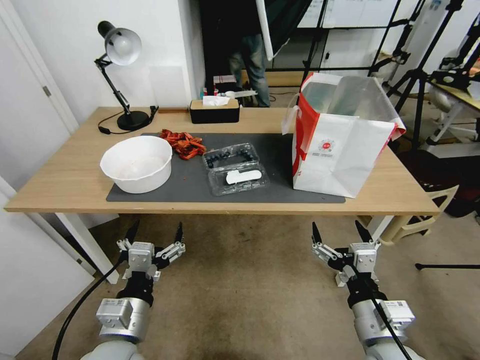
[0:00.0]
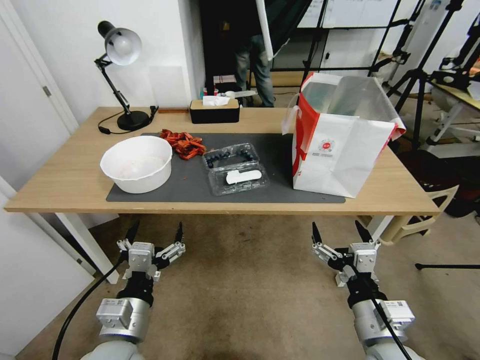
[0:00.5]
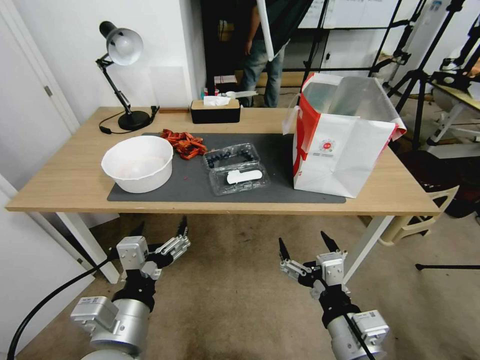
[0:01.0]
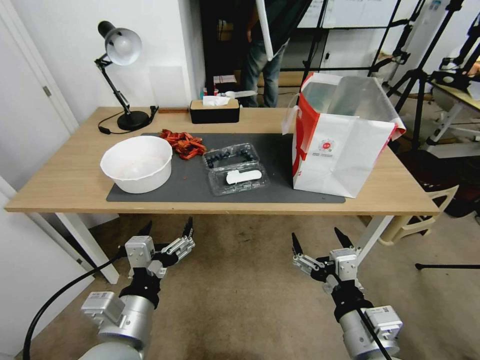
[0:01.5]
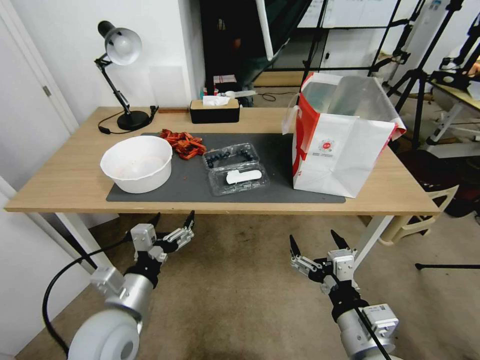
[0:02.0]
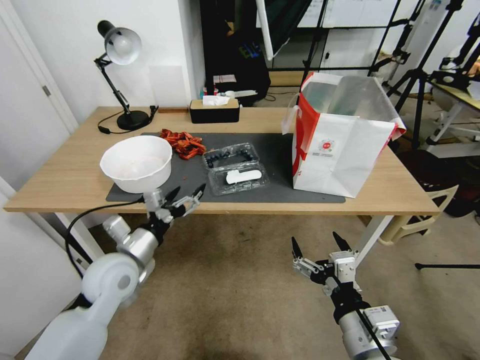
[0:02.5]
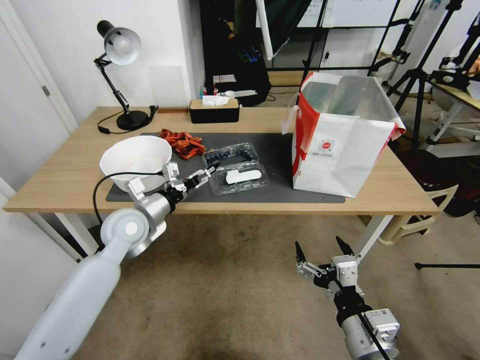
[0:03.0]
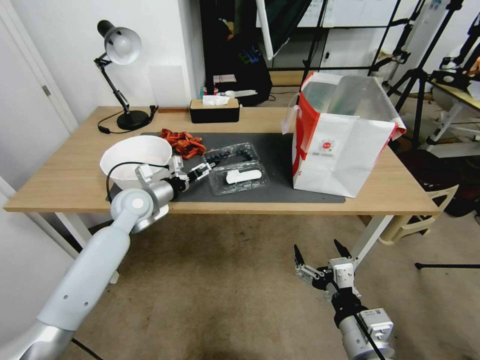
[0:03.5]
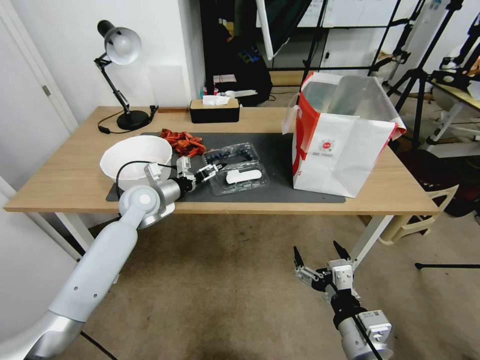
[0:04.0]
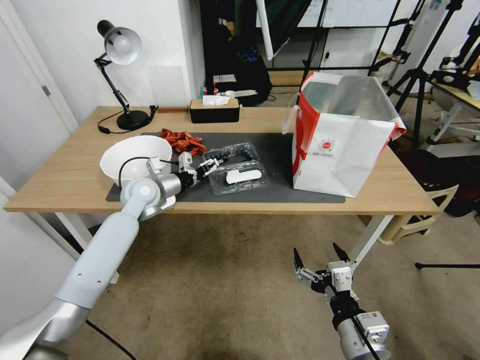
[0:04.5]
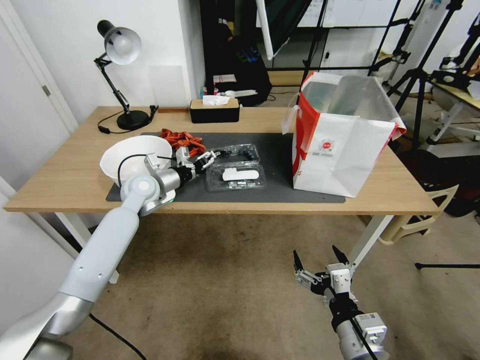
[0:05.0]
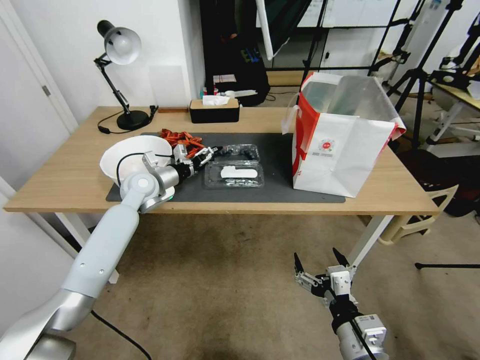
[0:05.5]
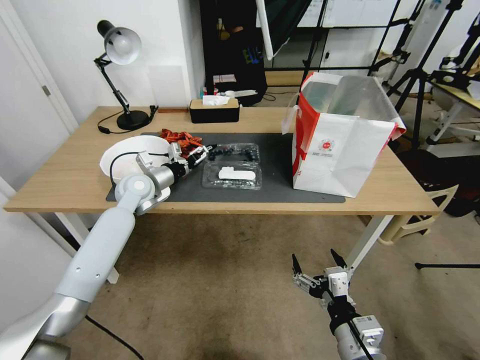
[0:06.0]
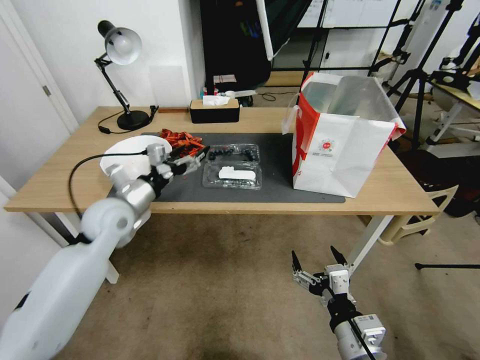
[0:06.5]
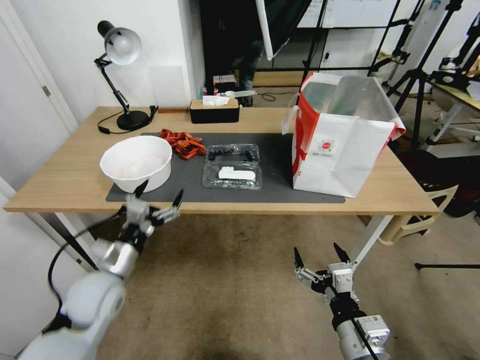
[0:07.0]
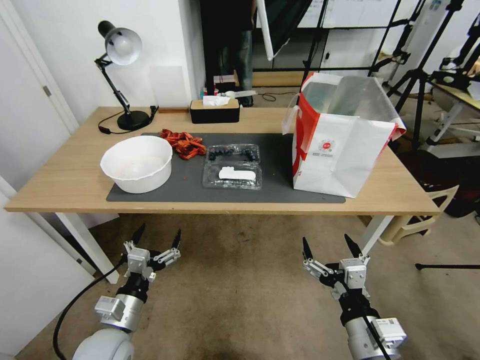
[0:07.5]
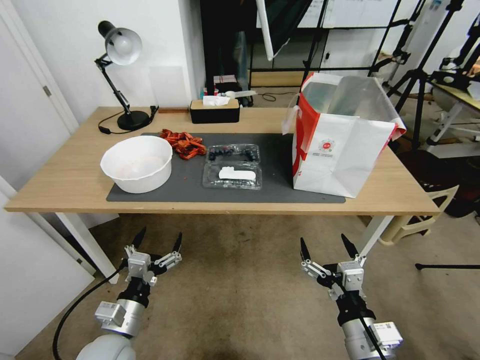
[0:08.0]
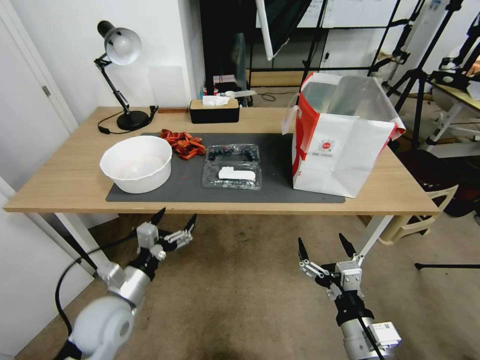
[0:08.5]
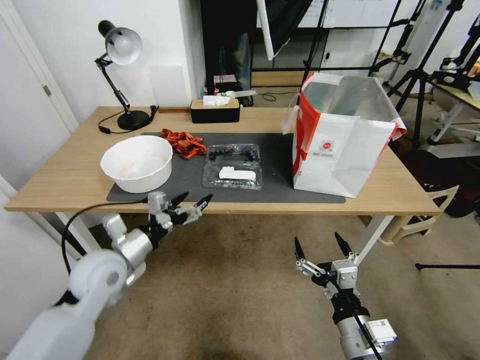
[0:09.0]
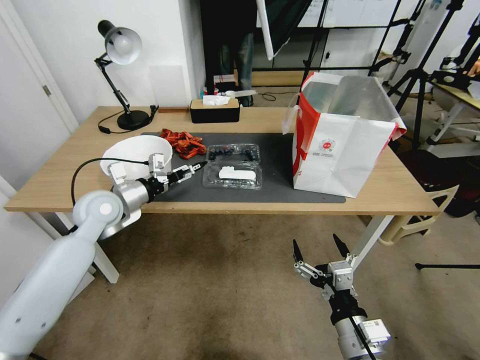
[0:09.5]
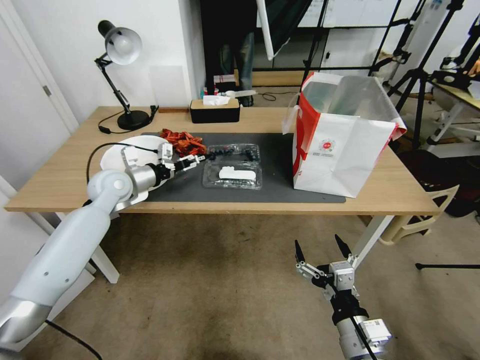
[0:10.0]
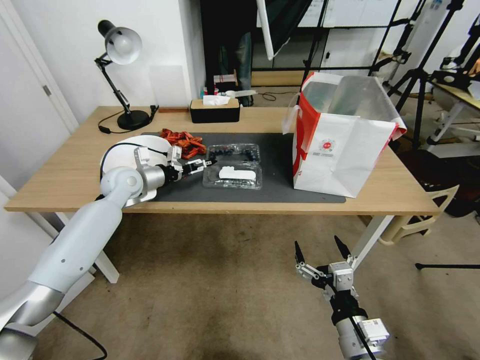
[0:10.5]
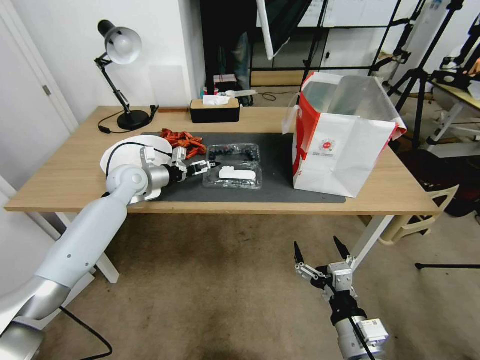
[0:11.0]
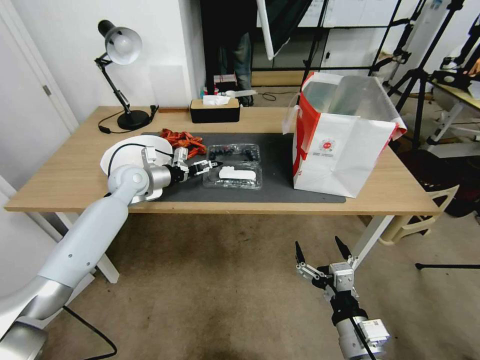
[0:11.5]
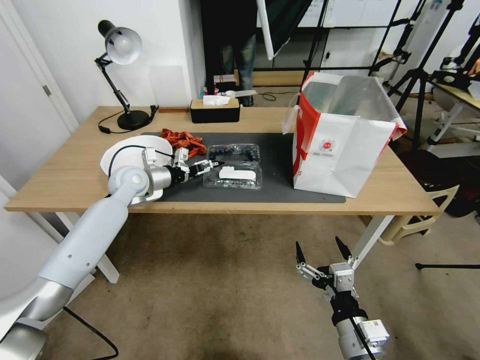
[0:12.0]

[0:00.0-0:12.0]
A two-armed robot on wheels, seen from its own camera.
Task of the whole recording: Close the takeout container lid, then place the container into the takeout bag.
0:02.0 to 0:04.0: The left gripper travels forward by roughly 30 cm.
0:04.0 to 0:06.0: There are only small adjustments of the grippers.
0:06.0 to 0:08.0: The left gripper goes about 35 cm backward.
0:08.0 to 0:10.0: The left gripper moves forward and upward, approximately 35 cm.
0:10.0 to 0:12.0: The grippers make only small movements.

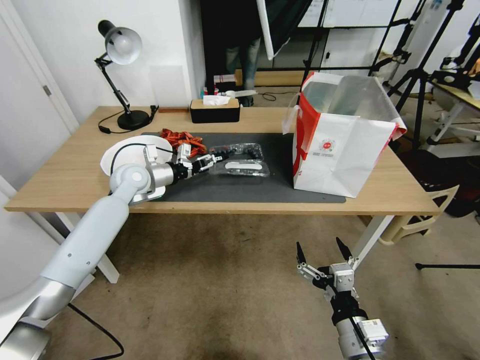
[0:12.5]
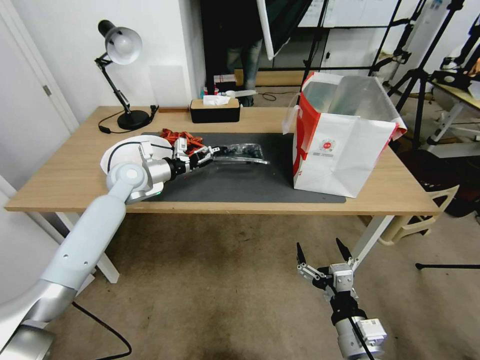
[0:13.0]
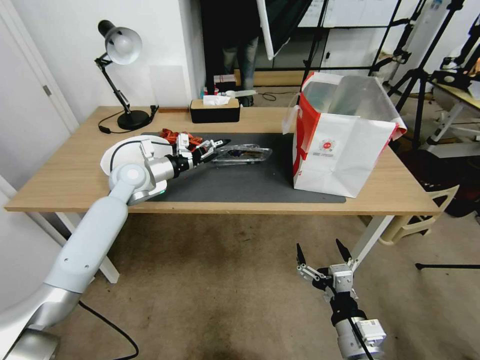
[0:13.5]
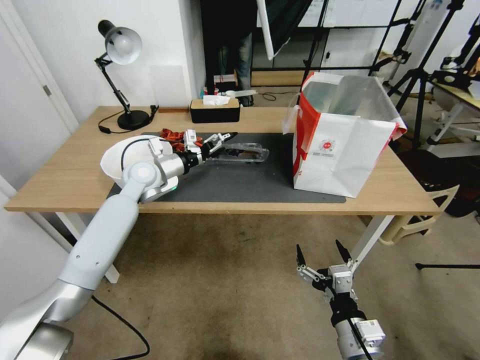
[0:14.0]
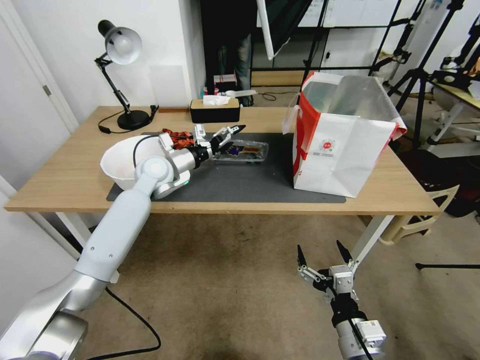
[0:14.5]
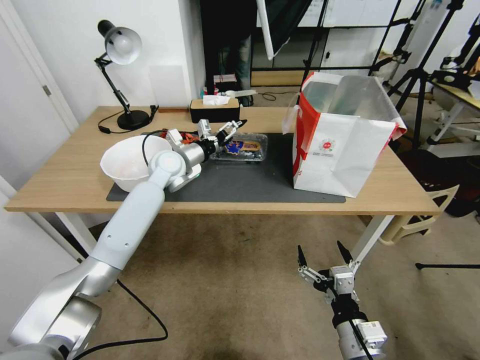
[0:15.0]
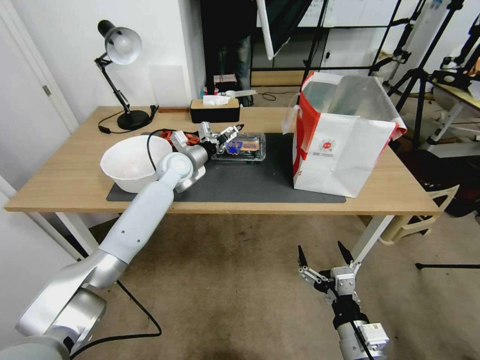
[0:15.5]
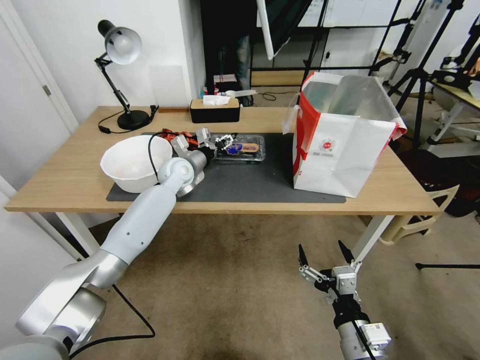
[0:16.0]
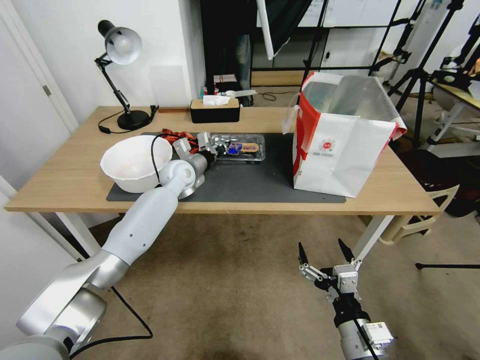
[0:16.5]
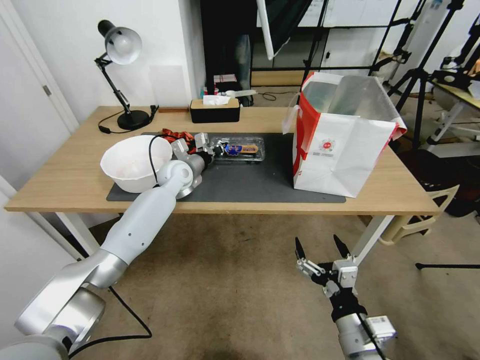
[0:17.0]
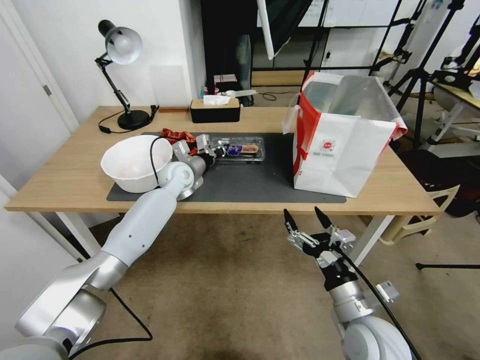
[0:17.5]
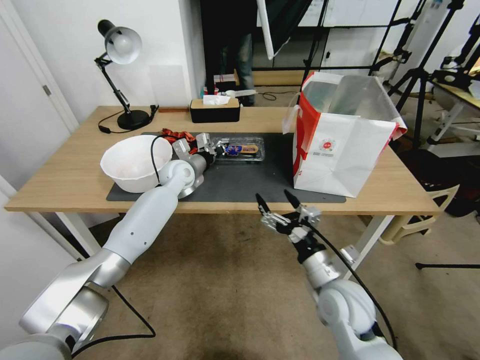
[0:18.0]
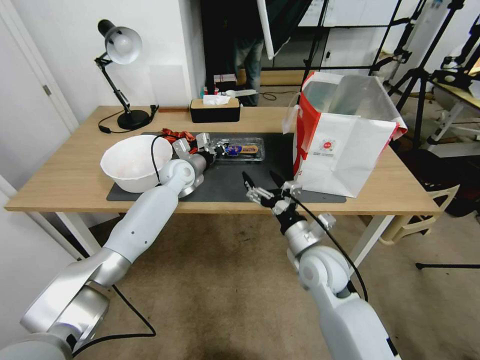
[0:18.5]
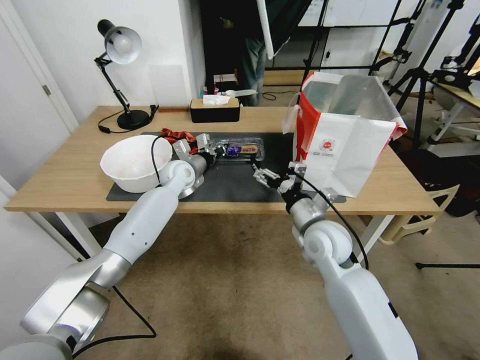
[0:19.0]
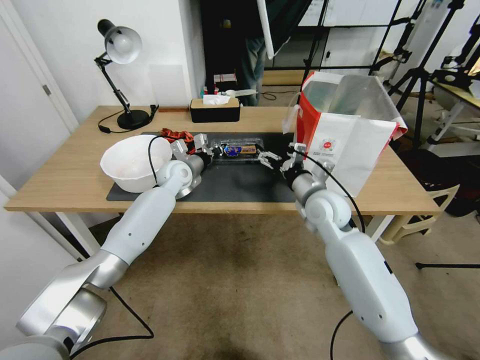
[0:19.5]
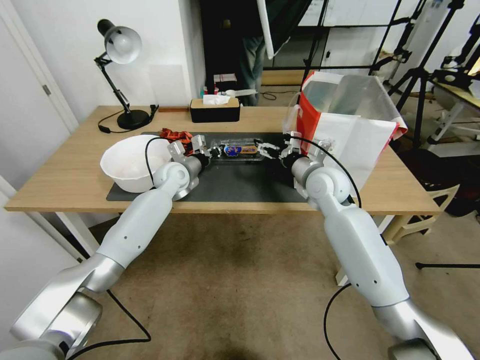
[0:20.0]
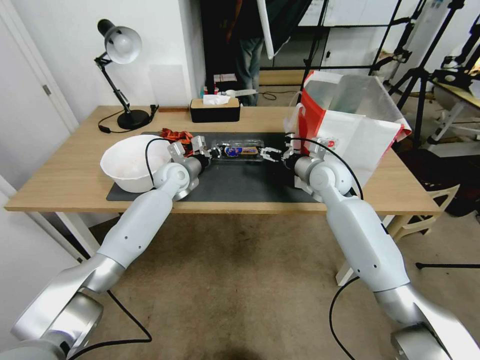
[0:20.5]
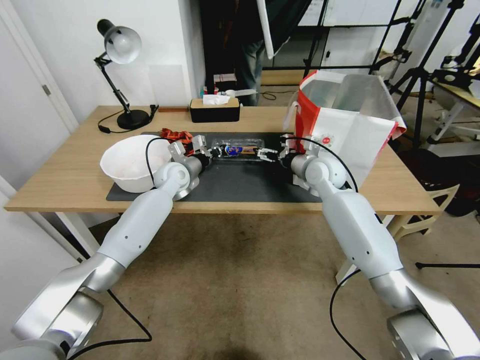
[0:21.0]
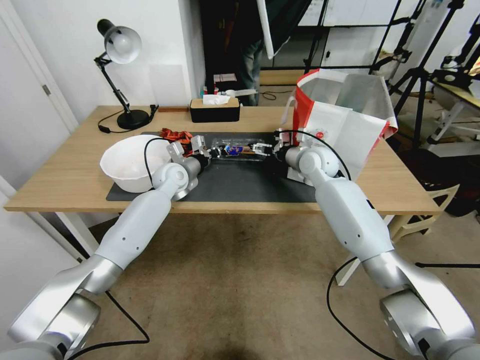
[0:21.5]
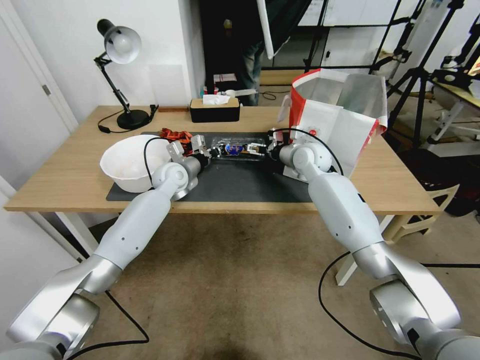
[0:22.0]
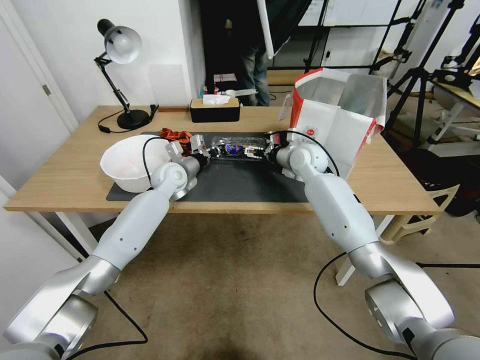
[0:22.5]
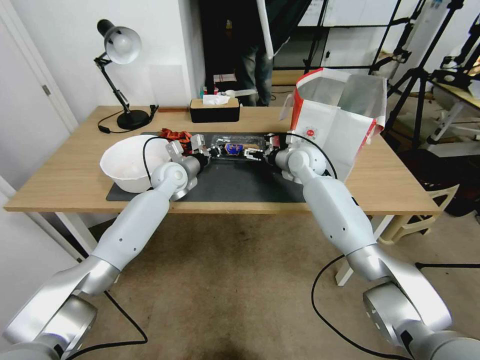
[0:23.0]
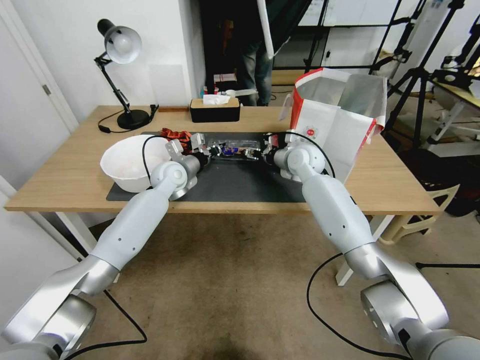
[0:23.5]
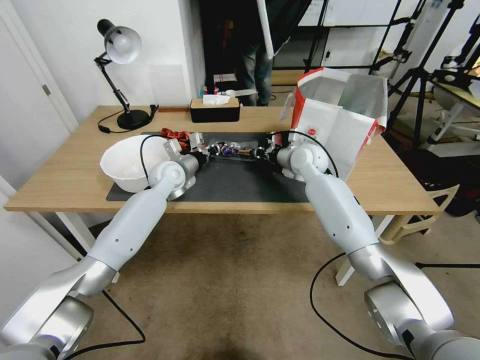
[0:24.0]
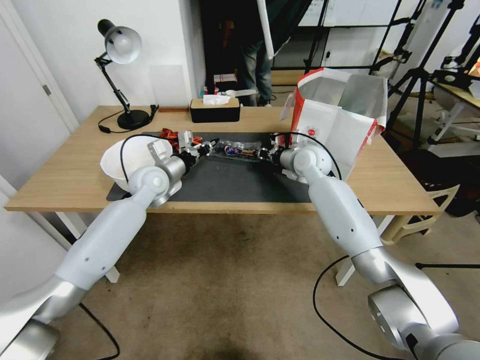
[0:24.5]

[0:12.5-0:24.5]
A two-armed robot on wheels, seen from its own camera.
Task of the whole recording: Close the takeout container lid, then place the container into the takeout bag.
0:12.5 to 0:14.5: The left gripper shifts roughly 5 cm to the right.
0:14.5 to 0:16.5: The left gripper ends up approximately 10 cm from where it was, and closes up.
0:16.5 to 0:18.5: The right gripper heads forward, covering some 15 cm.
0:18.5 to 0:20.5: The right gripper travels forward and upward by approximately 25 cm.
0:20.5 to 0:22.5: The right gripper travels forward by some 10 cm.
0:22.5 to 0:24.5: The right gripper closes. Meanwhile the left gripper goes approximately 5 cm backward.

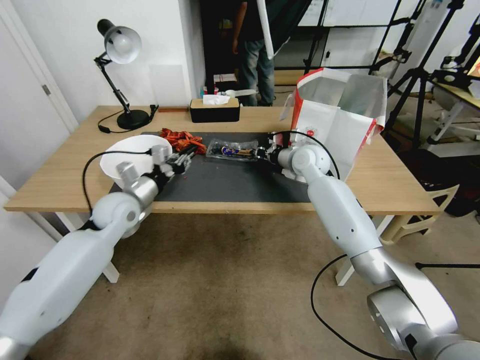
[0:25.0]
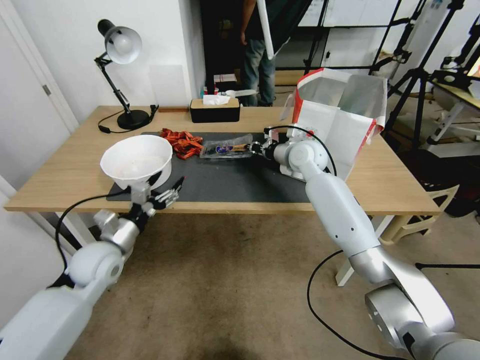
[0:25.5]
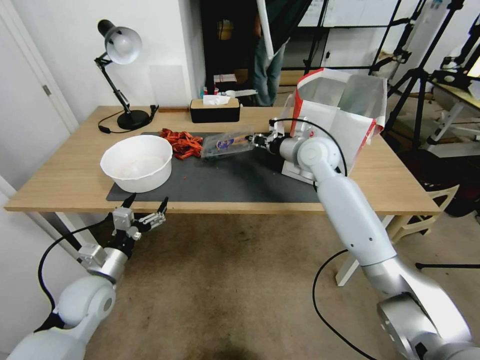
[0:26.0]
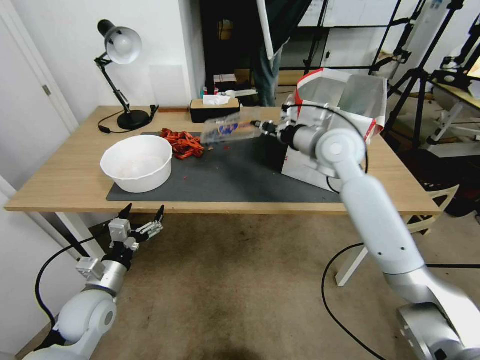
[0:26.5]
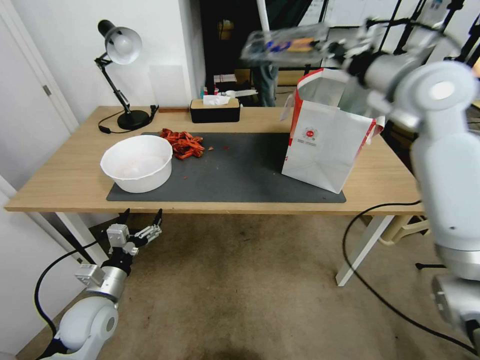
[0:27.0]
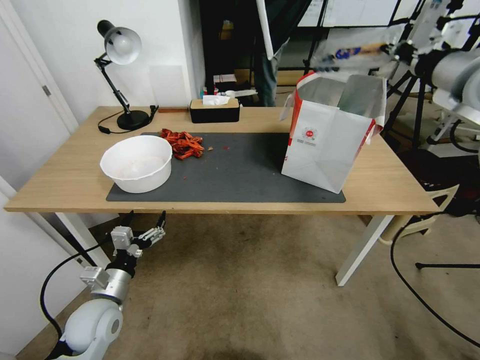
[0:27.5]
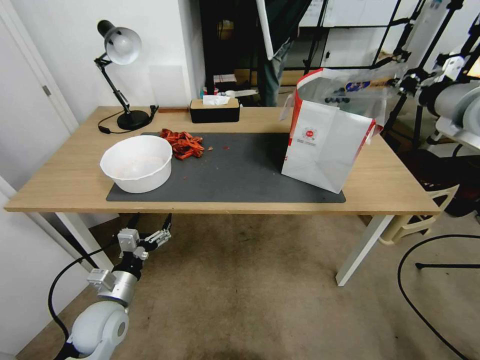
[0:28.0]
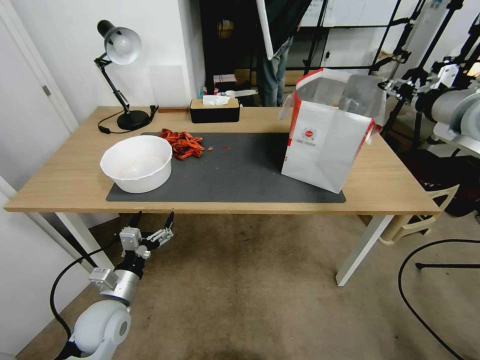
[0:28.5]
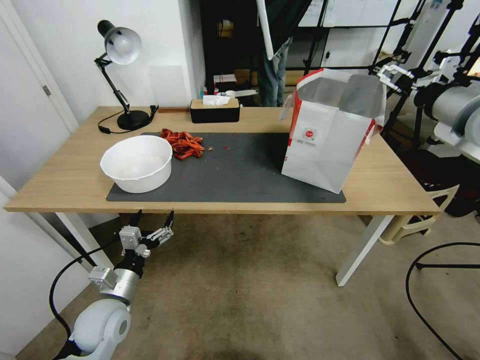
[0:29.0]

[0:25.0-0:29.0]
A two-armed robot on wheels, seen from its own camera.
Task of the whole recording: Close the takeout container lid, then place the container into the takeout bag.
0:25.0 to 0:27.0: The left gripper travels backward and downward by about 20 cm, and opens its fingers; the right gripper travels upward, backward and to the right by about 30 cm.
0:27.0 to 0:29.0: The right gripper travels to the right and backward by some 10 cm, and opens its fingers.
